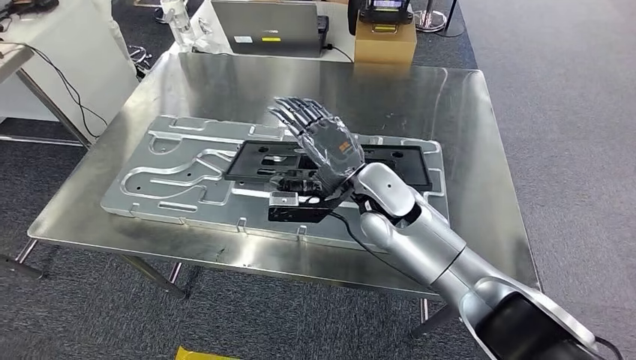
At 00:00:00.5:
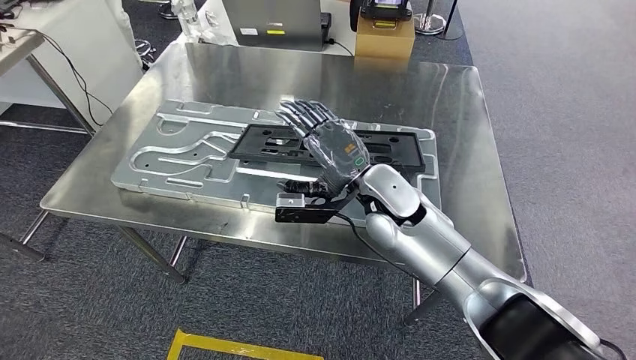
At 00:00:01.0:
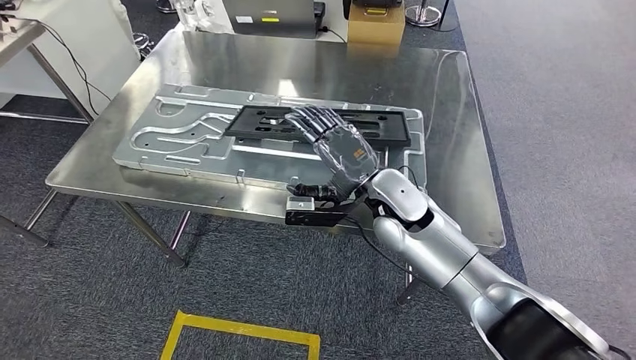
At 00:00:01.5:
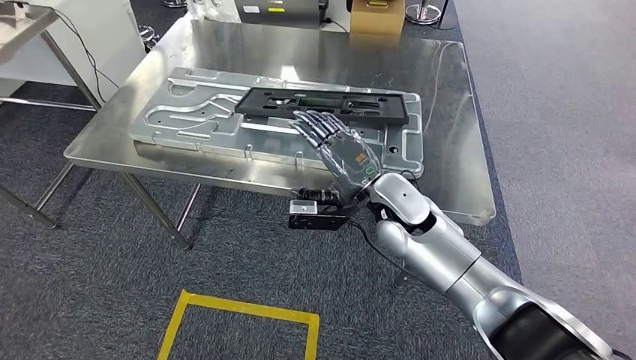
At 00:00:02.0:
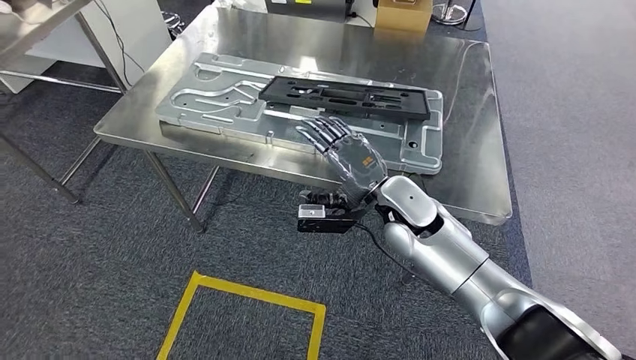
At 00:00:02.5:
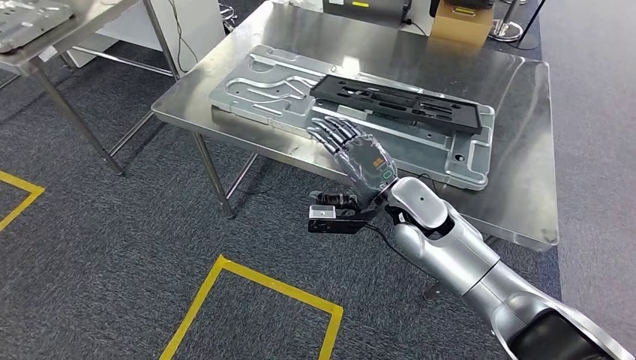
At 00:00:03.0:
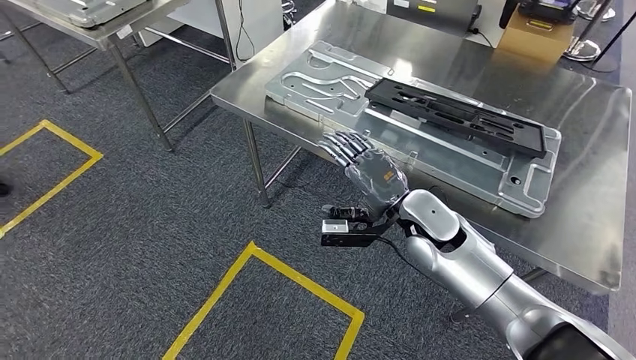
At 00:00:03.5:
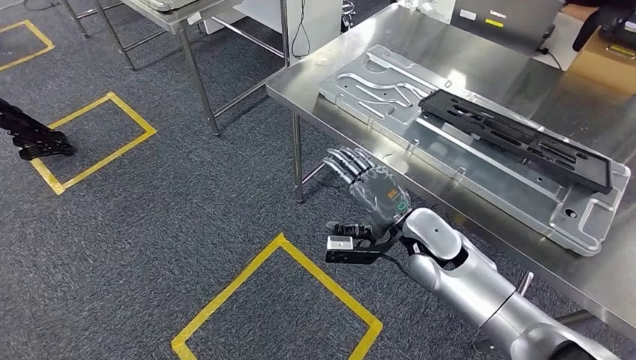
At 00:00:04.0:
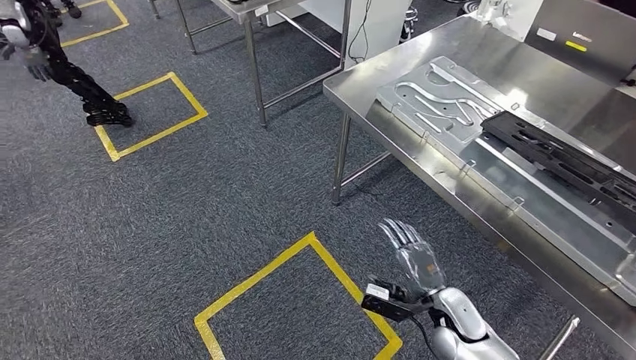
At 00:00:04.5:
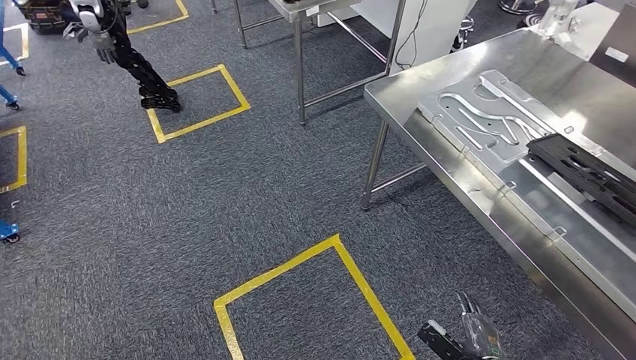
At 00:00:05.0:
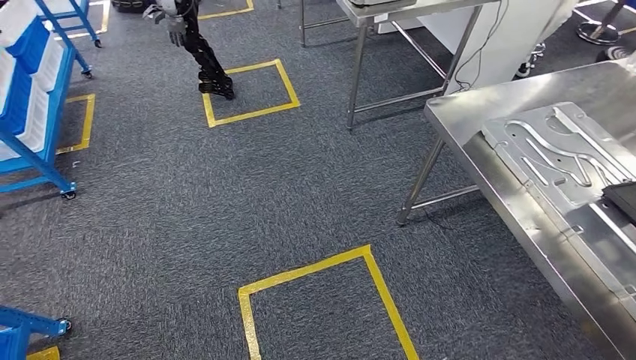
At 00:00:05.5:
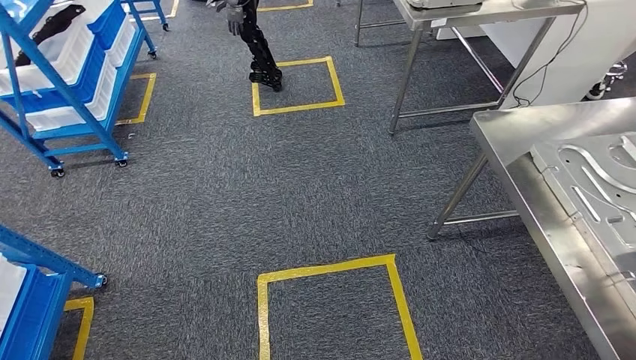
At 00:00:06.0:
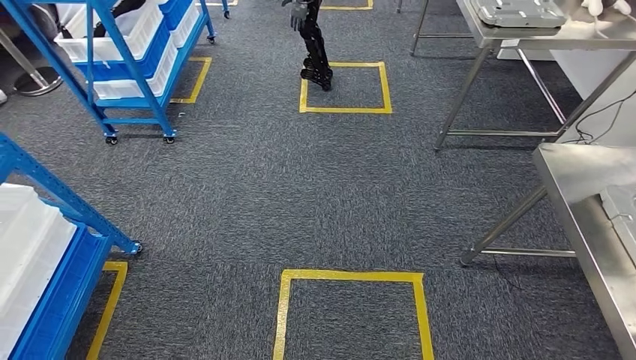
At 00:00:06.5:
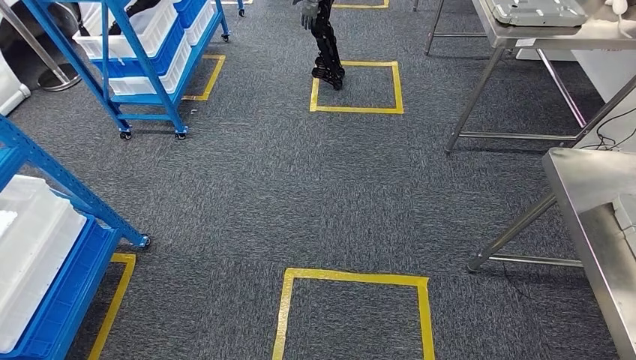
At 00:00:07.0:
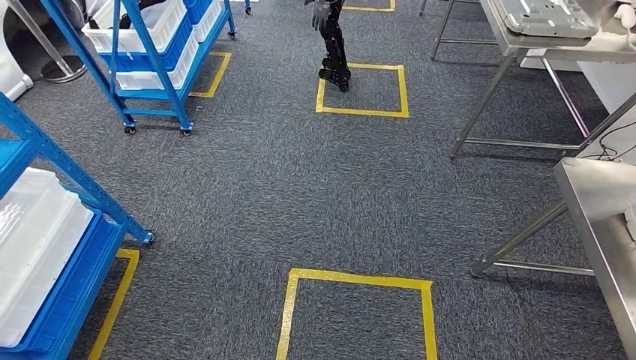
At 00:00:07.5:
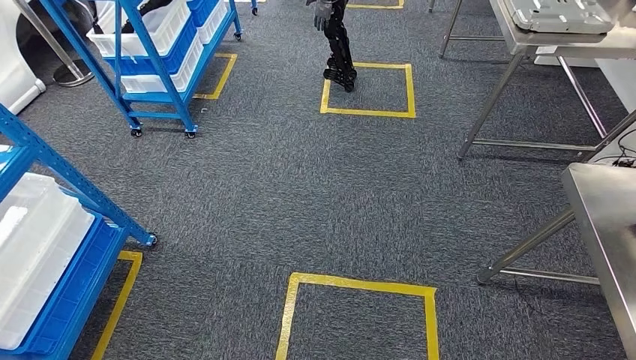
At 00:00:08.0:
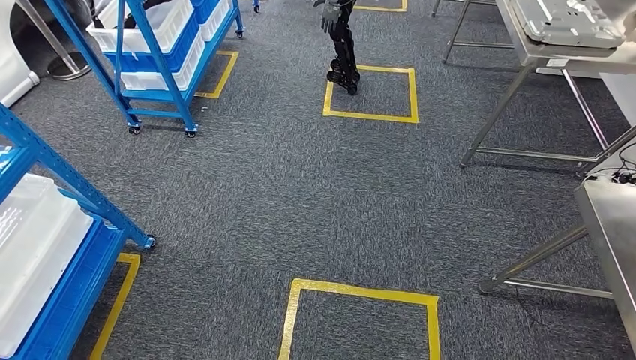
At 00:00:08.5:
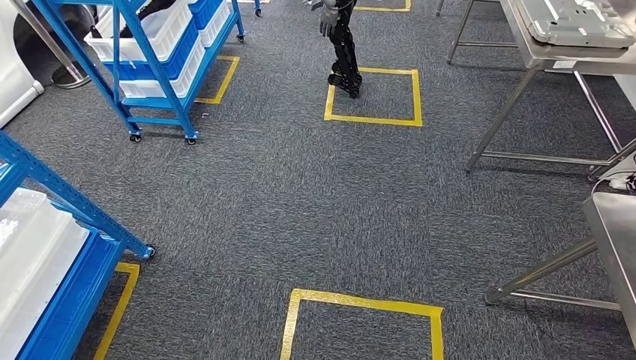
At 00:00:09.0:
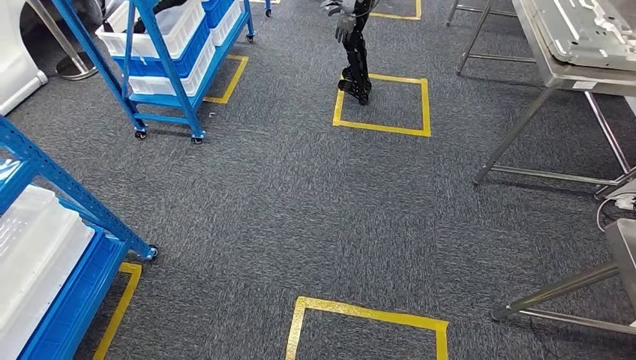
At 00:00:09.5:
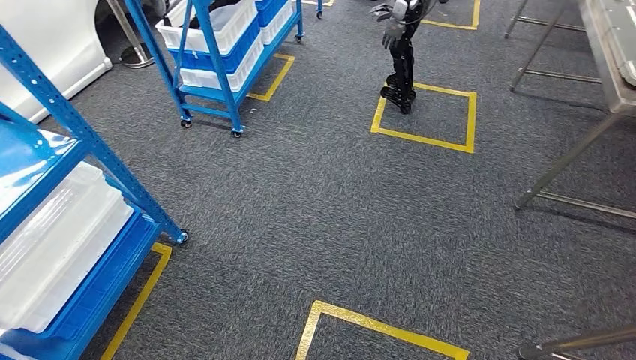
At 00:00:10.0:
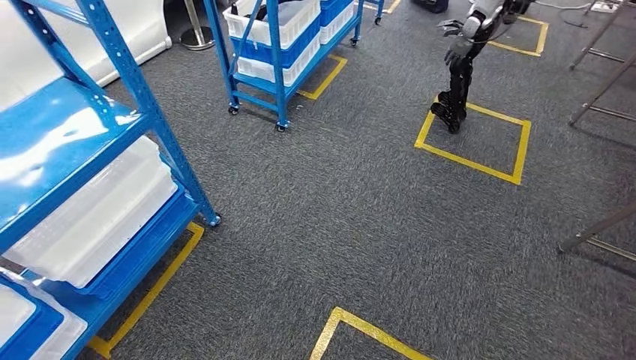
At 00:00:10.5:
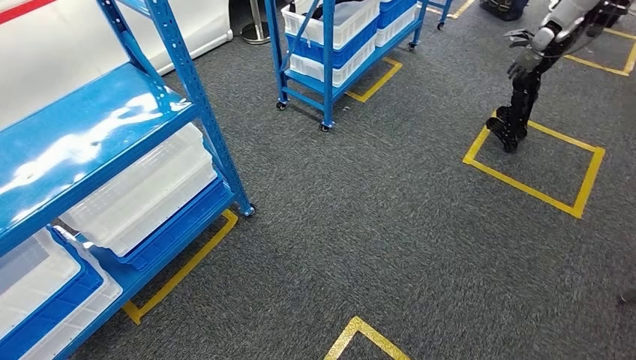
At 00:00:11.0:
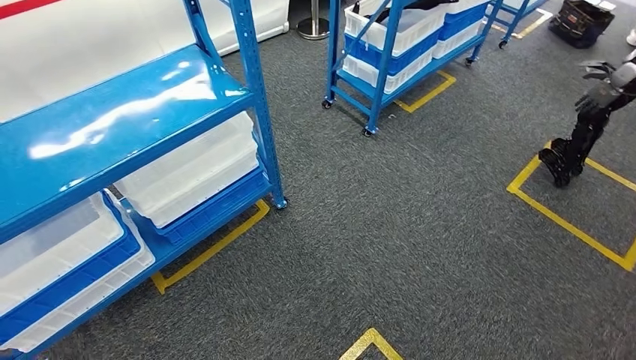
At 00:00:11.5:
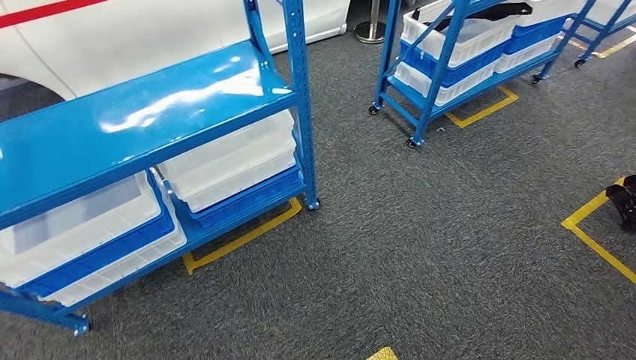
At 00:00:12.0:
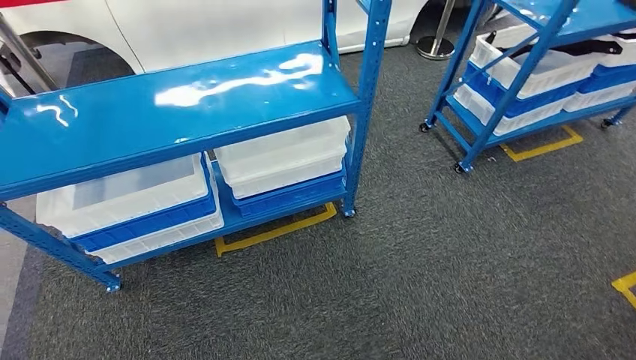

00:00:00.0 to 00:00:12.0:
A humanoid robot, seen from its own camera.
Step, 00:00:00.0 to 00:00:02.0: Insert the large material into the corresponding slot on the workbench.

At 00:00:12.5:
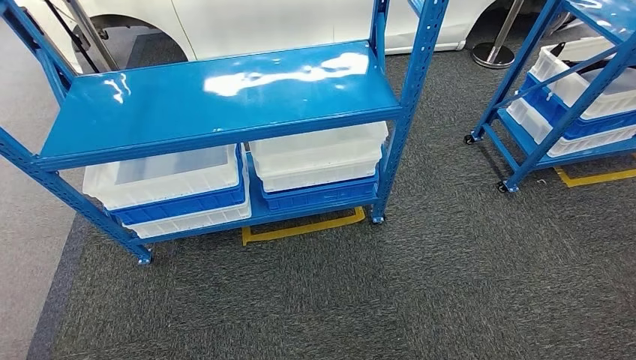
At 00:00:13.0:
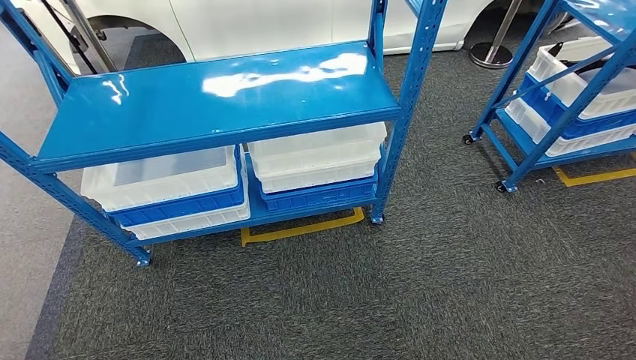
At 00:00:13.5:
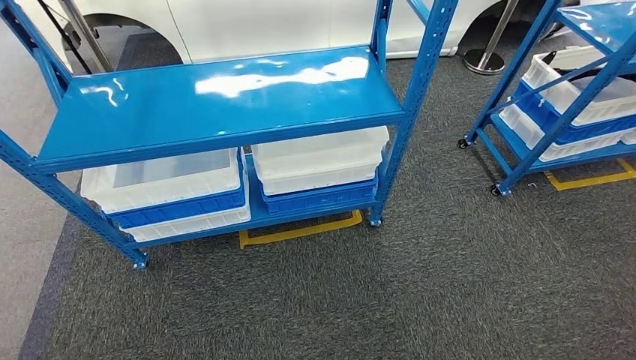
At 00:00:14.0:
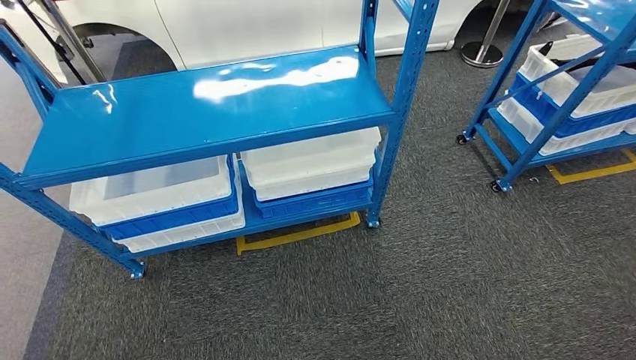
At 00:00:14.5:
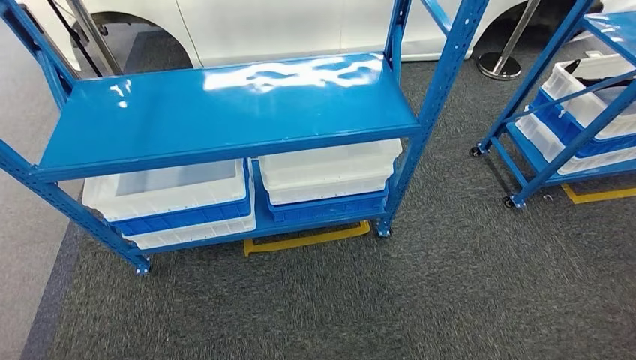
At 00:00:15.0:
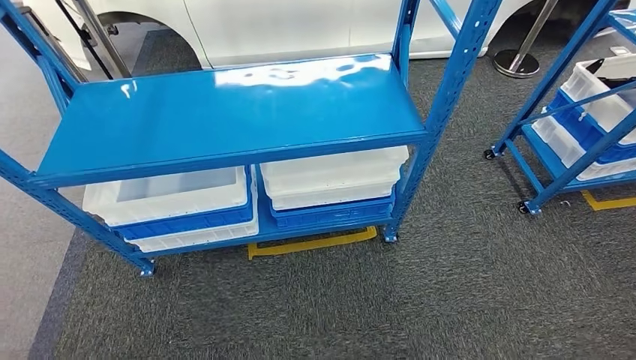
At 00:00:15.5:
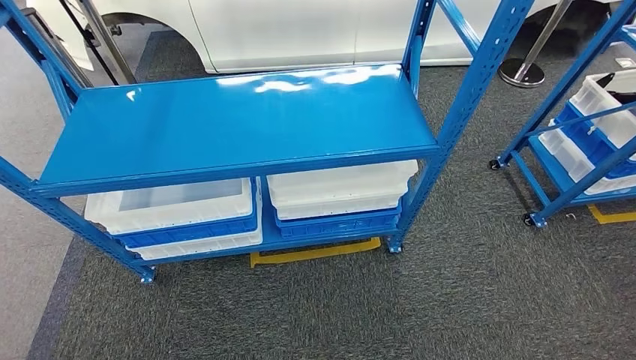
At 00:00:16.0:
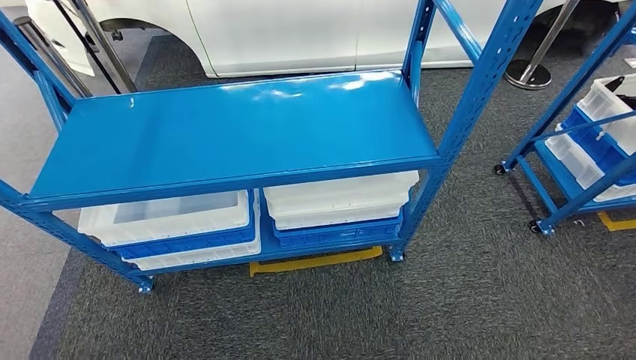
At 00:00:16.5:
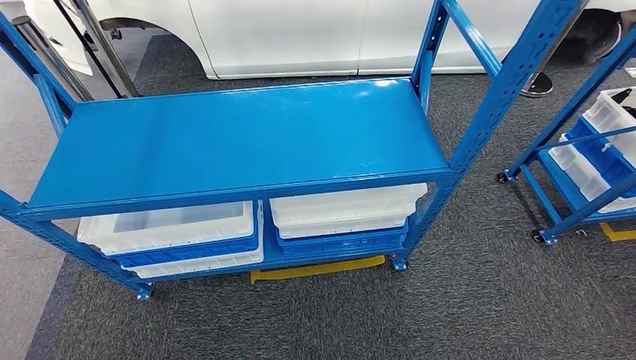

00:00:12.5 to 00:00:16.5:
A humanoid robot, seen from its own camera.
Step, 00:00:12.5 to 00:00:16.5: Return to the initial position at the shelf.
